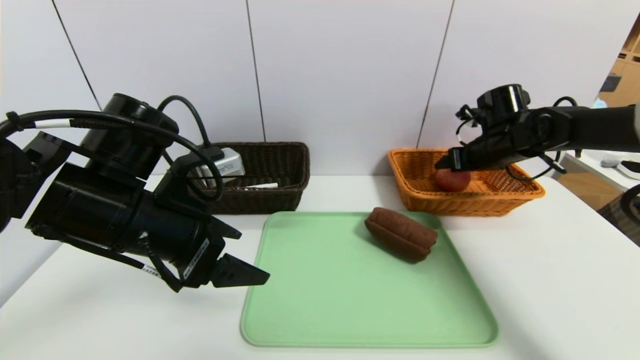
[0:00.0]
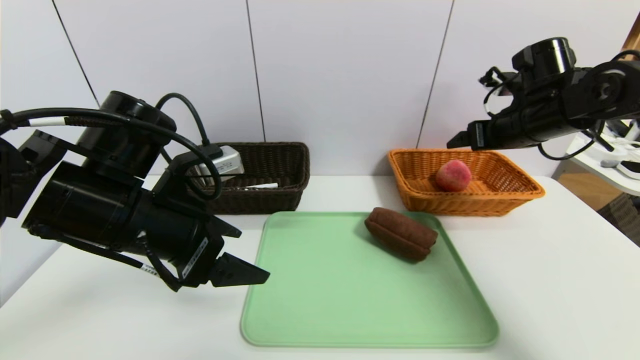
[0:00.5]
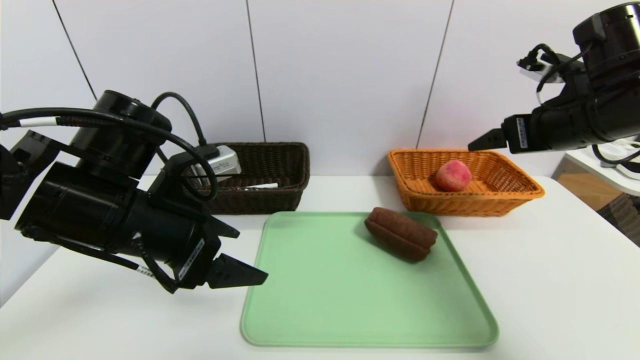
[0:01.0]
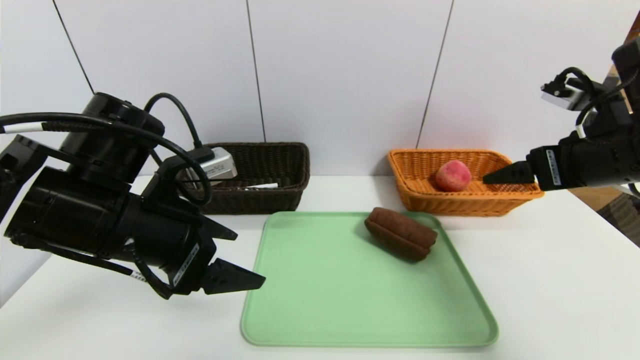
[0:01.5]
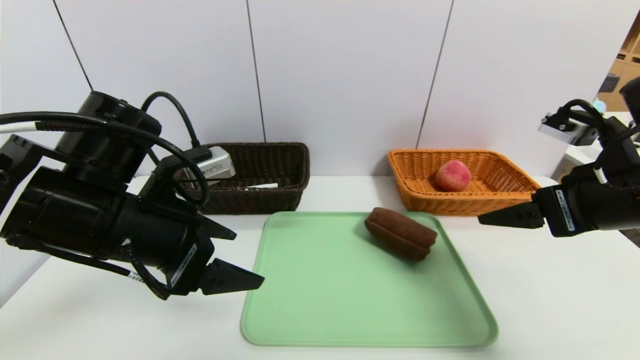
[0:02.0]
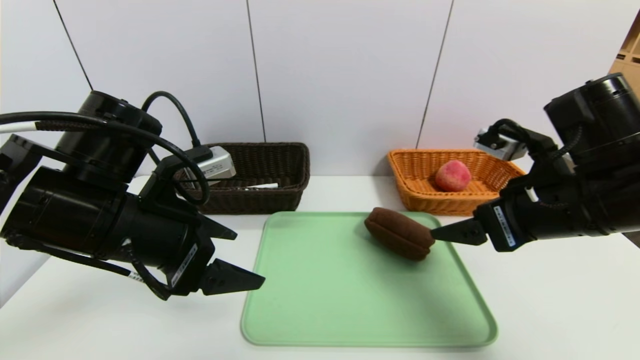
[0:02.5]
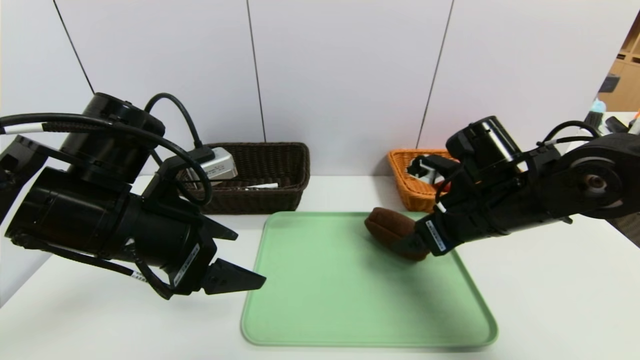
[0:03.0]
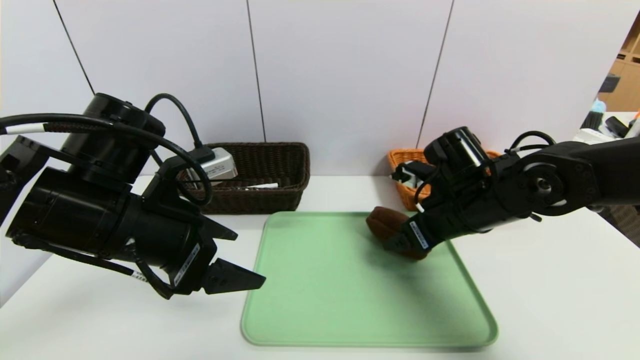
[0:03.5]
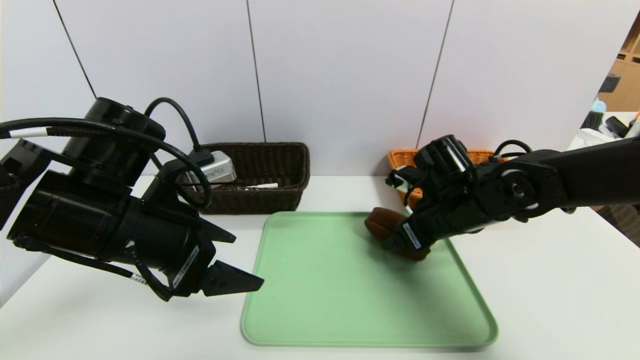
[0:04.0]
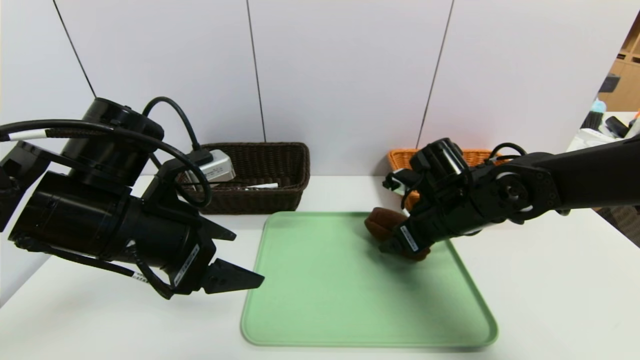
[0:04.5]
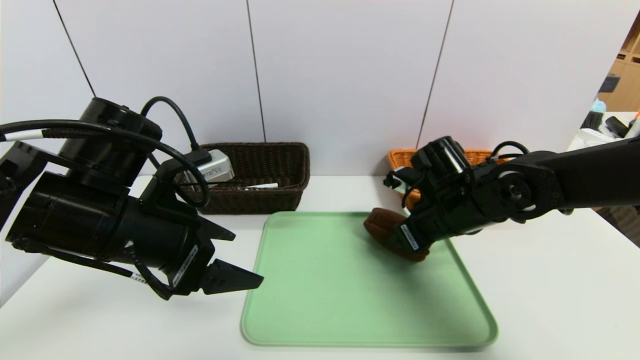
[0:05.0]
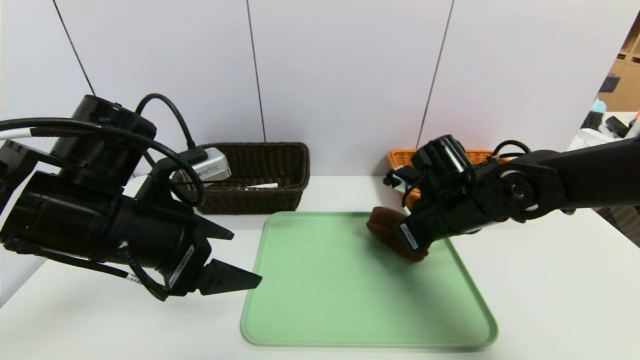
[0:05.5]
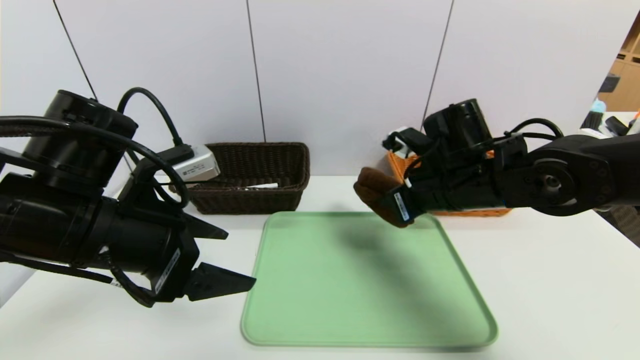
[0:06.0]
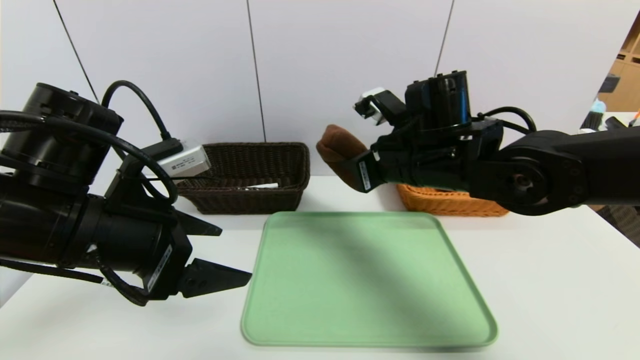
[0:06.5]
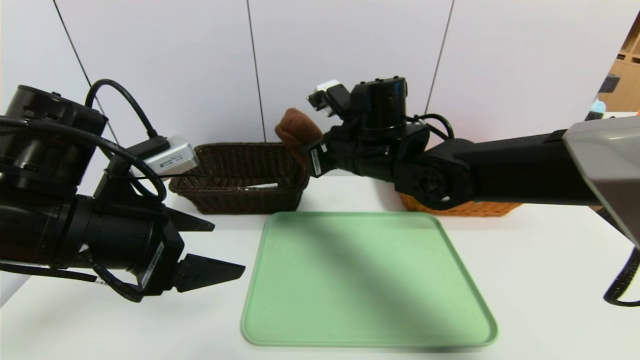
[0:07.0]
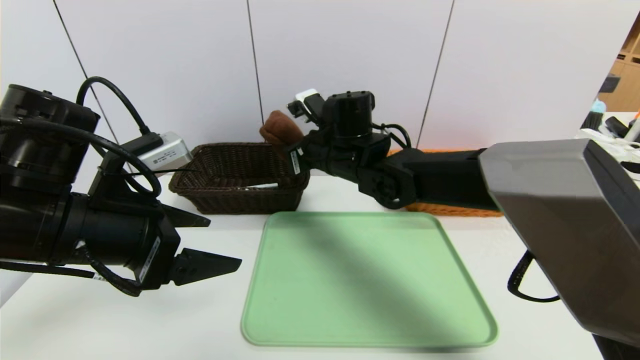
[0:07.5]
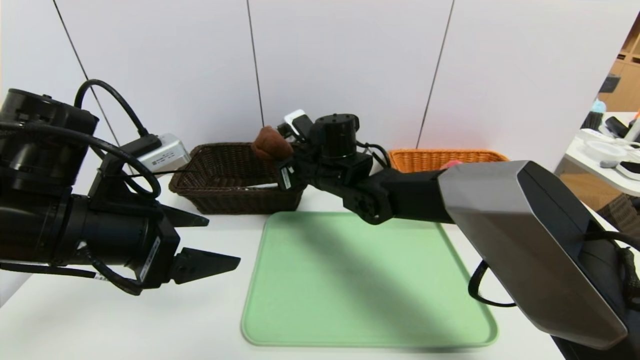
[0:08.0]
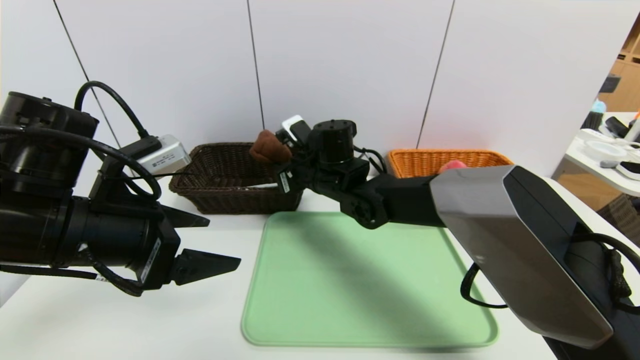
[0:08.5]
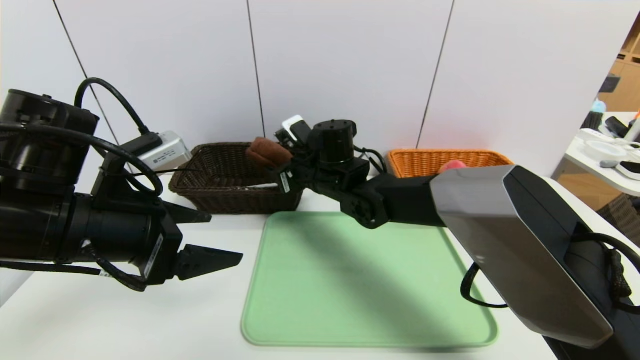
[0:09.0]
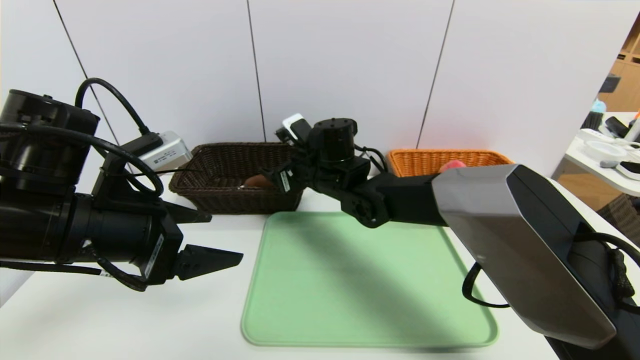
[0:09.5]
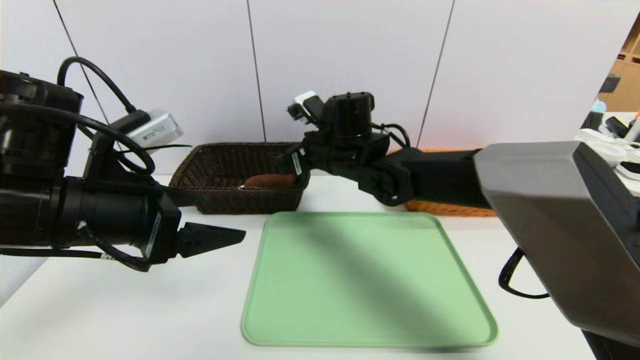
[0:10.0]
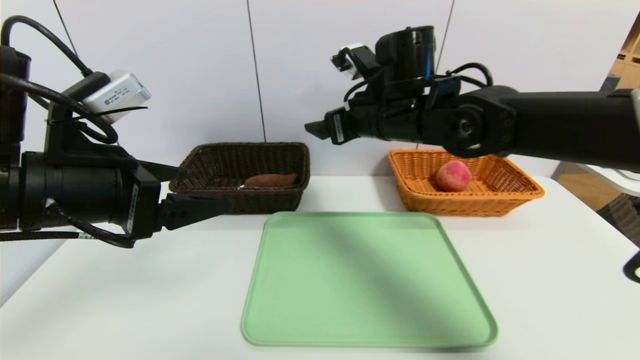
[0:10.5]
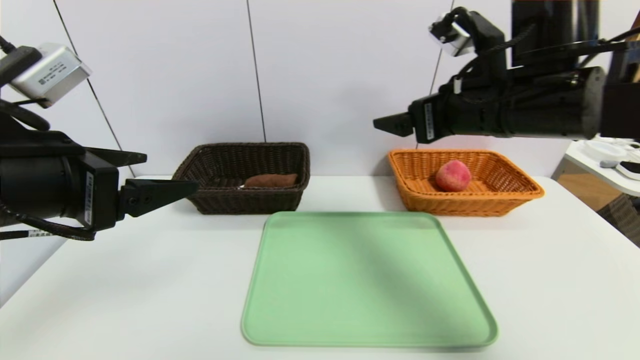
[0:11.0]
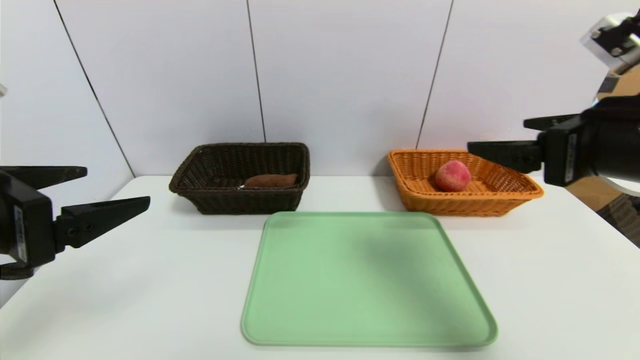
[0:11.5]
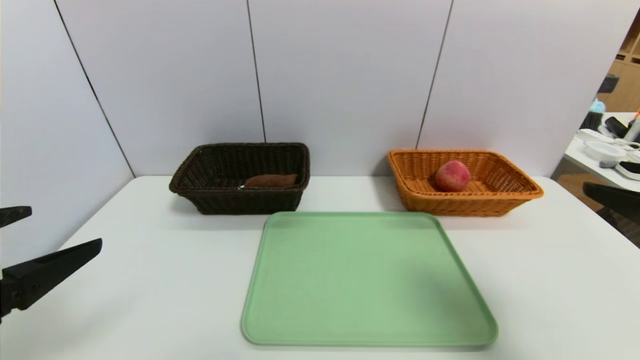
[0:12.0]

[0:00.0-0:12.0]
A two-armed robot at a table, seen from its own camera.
Task of the whole recording: place the food in the right basket with the right gripper, and place the non food items in the left basket with the left gripper.
0:00.0 to 0:02.0: The right gripper is displaced backward by about 25 cm.
0:02.0 to 0:04.0: The right gripper shifts roughly 20 cm forward, downward and to the left.
0:04.0 to 0:06.0: The right gripper heads upward, covering roughly 5 cm, and closes up.
0:06.0 to 0:08.0: The right gripper is displaced to the left and forward by some 20 cm.
0:08.0 to 0:10.0: The right gripper opens.
0:10.0 to 0:12.0: The left gripper is displaced backward and to the left by some 15 cm; the right gripper goes some 40 cm to the right and backward.

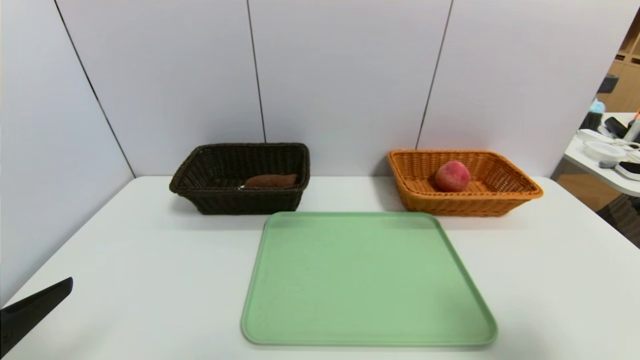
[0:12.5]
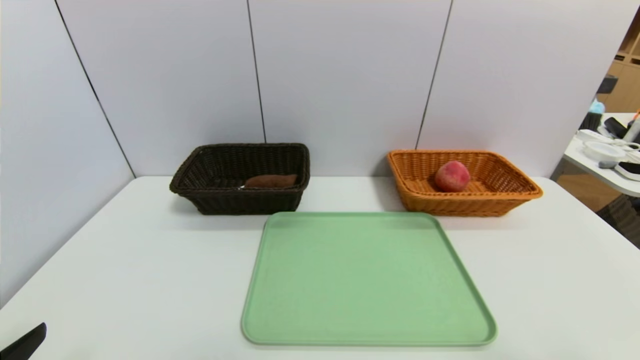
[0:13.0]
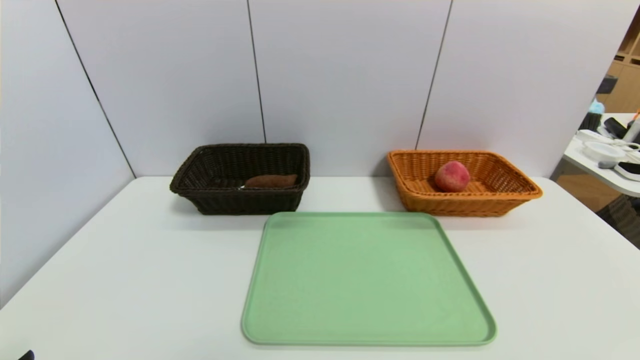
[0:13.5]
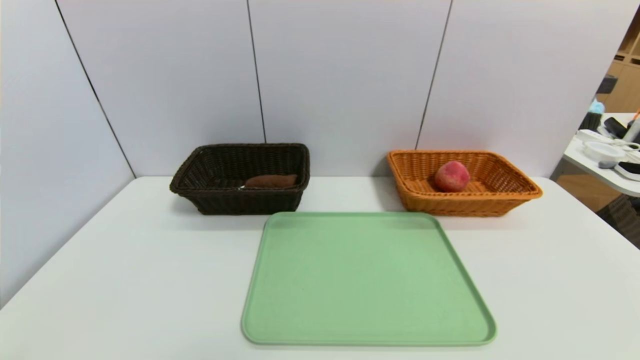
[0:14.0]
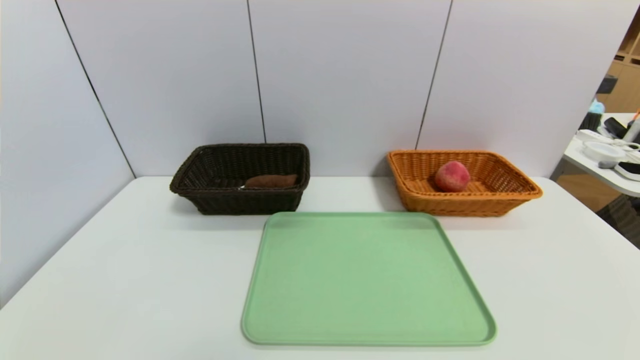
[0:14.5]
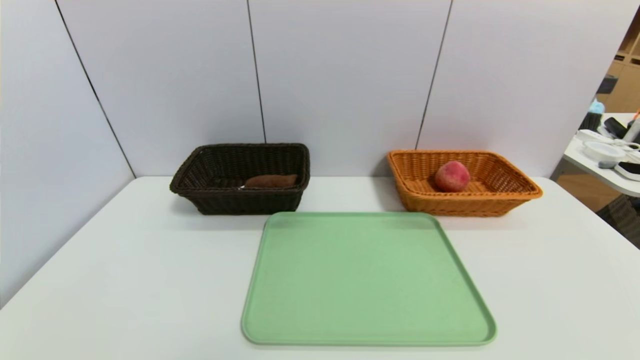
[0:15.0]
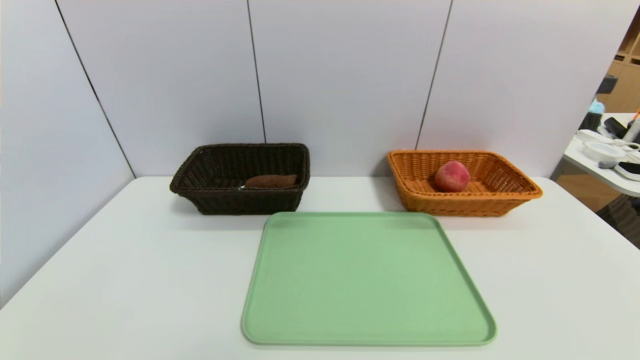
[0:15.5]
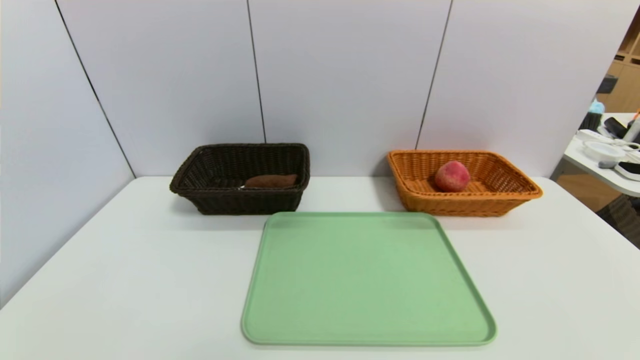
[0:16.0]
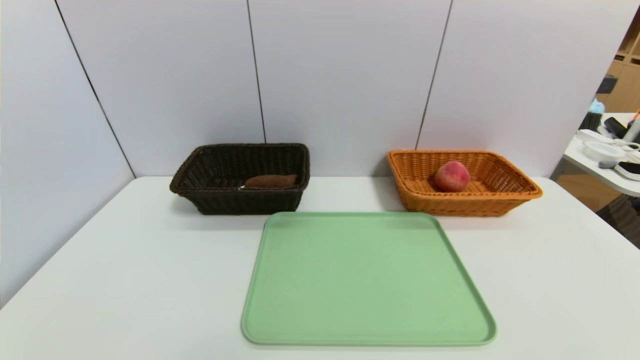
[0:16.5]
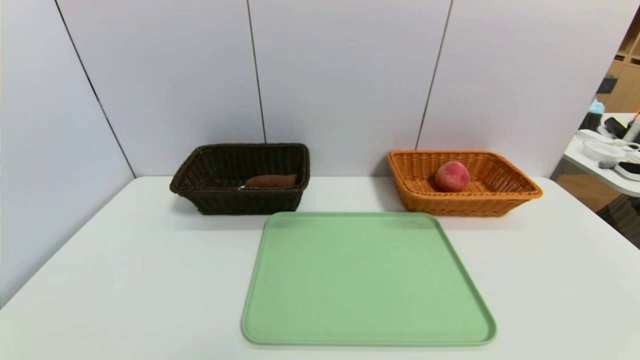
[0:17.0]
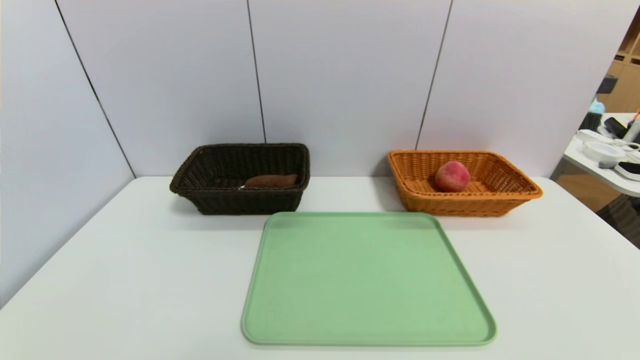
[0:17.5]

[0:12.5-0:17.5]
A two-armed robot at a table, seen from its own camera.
Task of the whole recording: place the food in the right basket with the right gripper, and place the non food items in the left basket with the left gripper.
0:12.5 to 0:15.0: Both grippers travel together downward and backward, some 15 cm.
